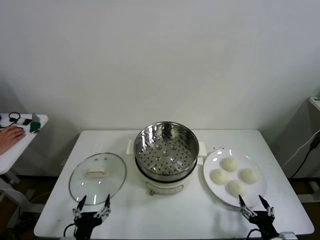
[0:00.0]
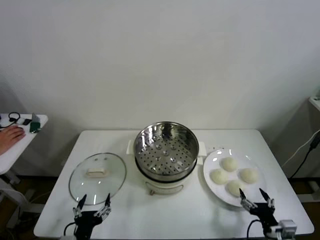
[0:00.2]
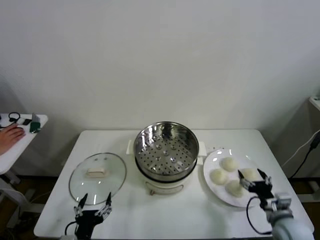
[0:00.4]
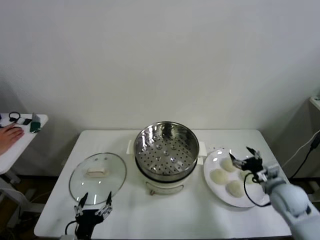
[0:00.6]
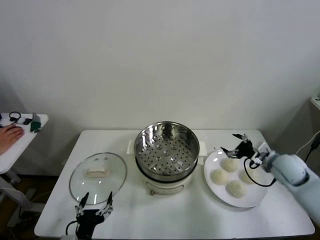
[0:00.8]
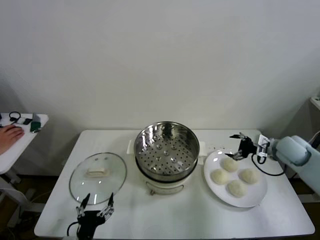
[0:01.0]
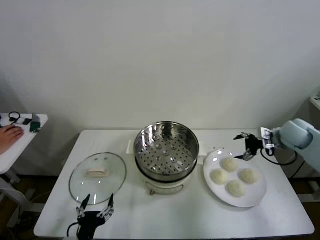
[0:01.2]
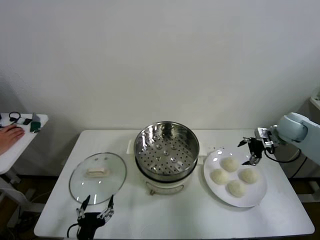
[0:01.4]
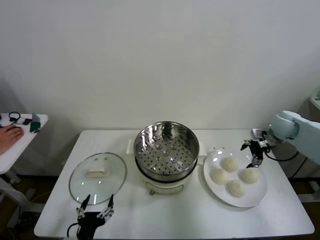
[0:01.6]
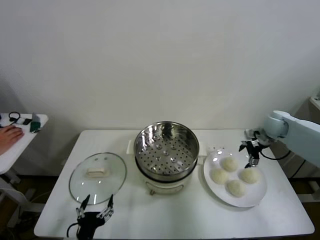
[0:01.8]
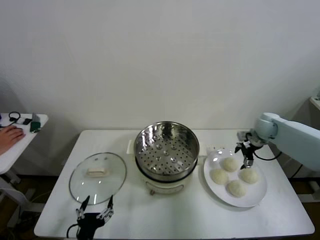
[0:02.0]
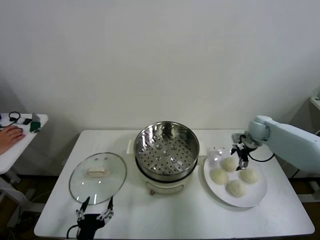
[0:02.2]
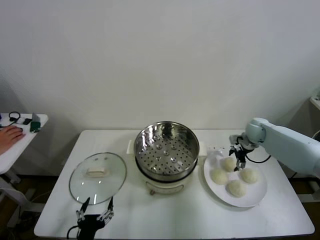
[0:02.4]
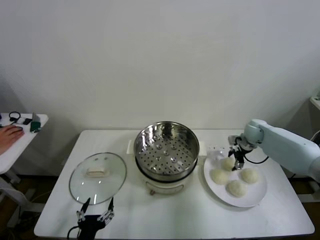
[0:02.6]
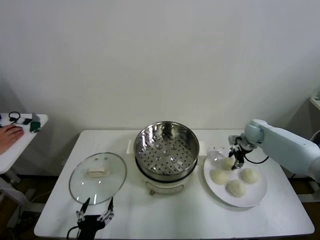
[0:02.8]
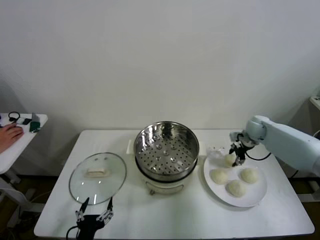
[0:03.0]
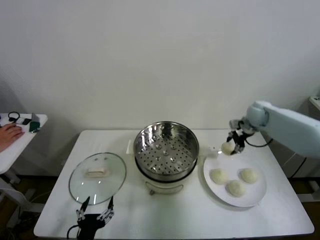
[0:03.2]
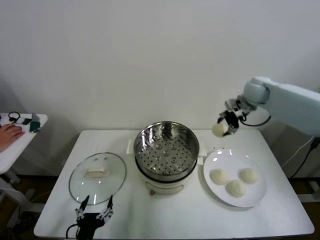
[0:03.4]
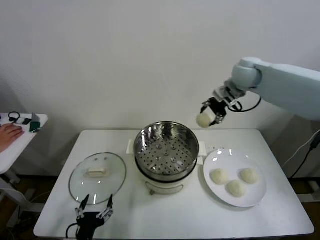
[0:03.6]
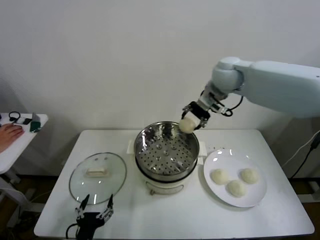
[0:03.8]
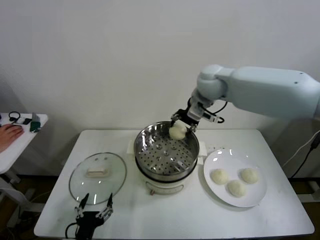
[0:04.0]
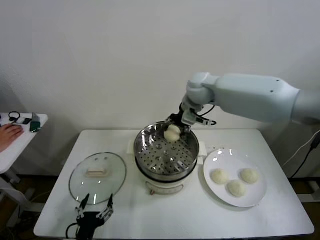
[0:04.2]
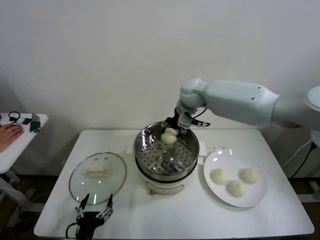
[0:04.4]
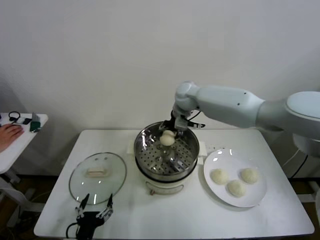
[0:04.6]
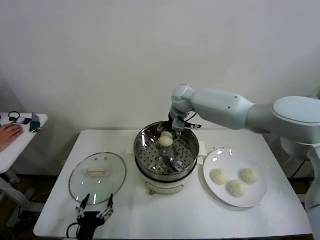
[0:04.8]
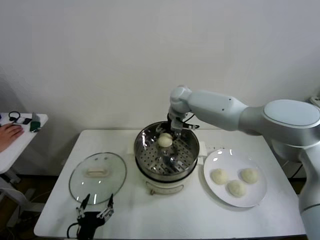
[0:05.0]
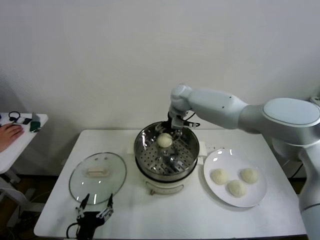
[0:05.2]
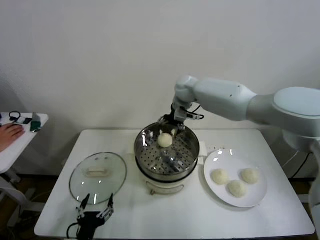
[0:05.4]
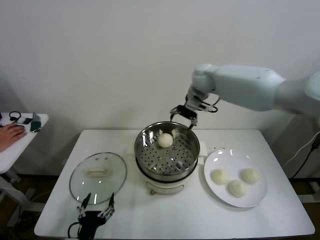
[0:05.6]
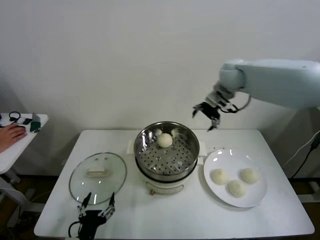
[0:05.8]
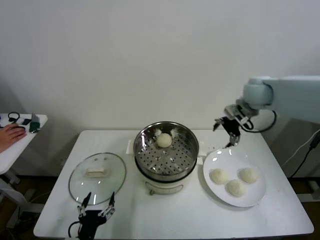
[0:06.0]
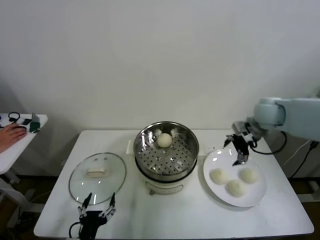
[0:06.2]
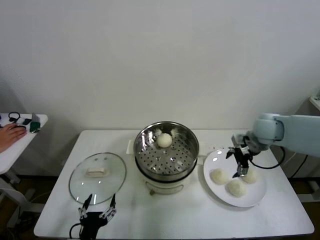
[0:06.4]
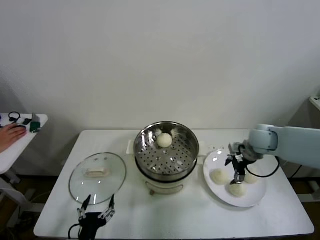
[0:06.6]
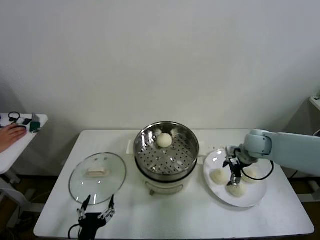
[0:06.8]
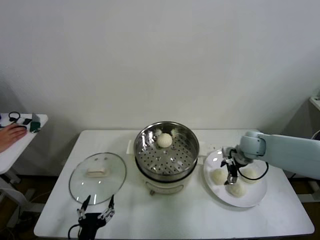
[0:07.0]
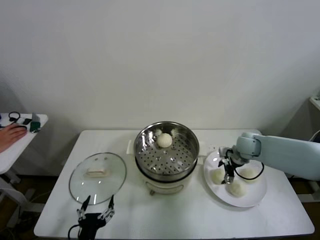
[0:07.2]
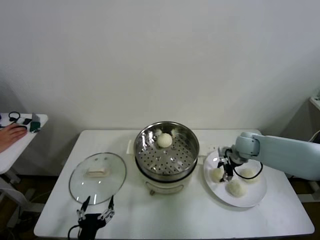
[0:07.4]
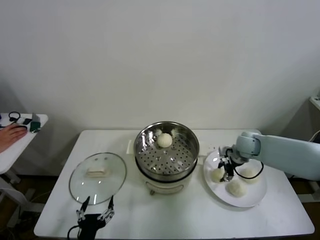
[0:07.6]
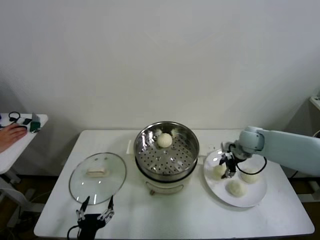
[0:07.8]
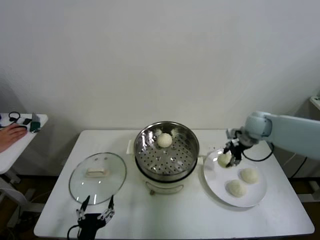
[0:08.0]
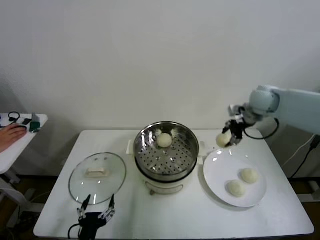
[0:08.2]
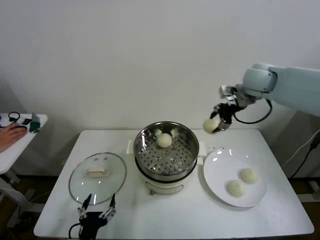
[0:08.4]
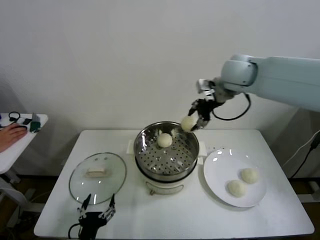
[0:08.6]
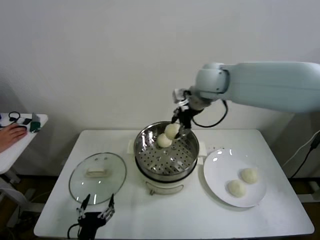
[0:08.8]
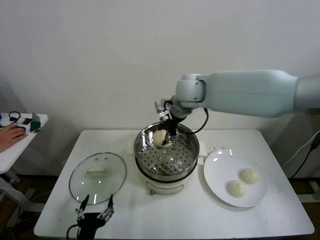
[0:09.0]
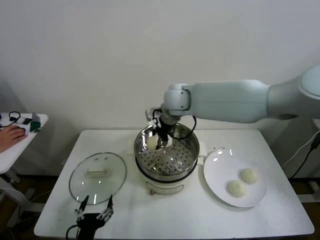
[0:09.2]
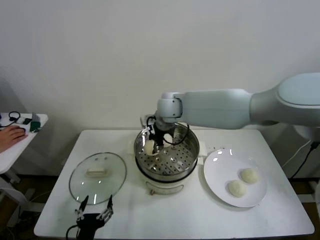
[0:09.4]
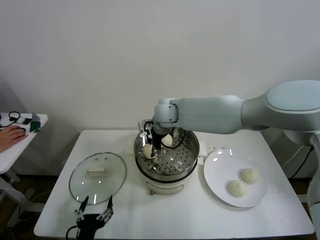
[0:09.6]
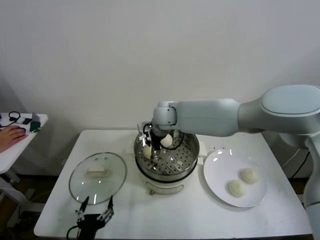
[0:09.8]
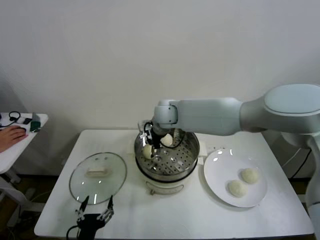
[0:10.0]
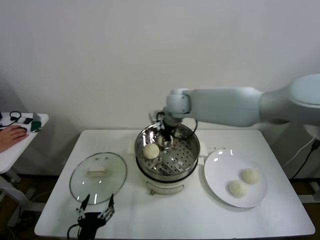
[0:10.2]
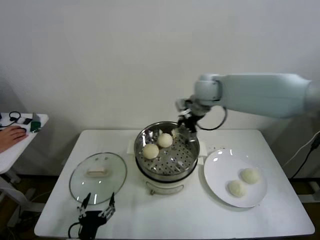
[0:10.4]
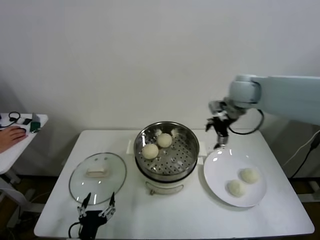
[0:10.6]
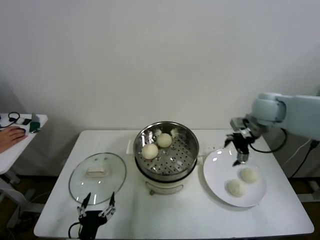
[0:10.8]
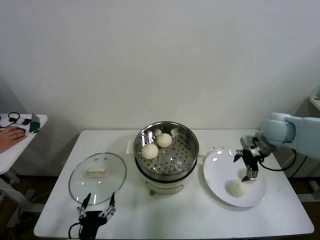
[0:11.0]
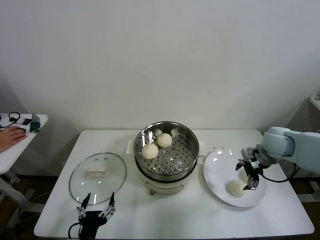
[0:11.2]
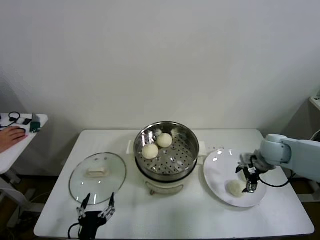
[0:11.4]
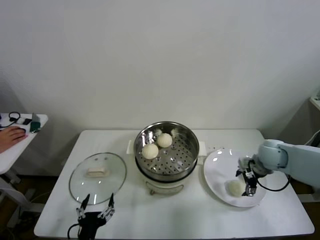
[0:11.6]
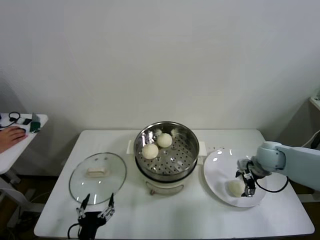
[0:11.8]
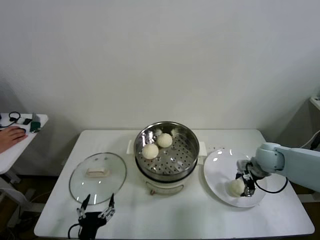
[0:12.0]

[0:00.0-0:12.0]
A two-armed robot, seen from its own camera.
Step, 0.0 to 2.6 s: Grasp the baozi in the plate with right gripper.
Step, 3.0 to 5.0 s: Place the baozi on the steamer with right gripper.
Step, 5.2 to 7.4 s: Grasp the baozi in the plate with right gripper.
Step, 7.6 to 9.8 s: Place the baozi on the steamer with right gripper.
1.6 to 3.0 s: The right gripper travels downward and back again, some 10 cm each way, and closes its fingers.
3.0 to 4.4 s: The right gripper goes some 30 cm to the left and upward.
4.4 to 6.0 s: The right gripper shifts approximately 20 cm to the right, and opens its fingers.
6.0 to 7.6 s: The right gripper shifts some 20 cm downward, and closes up.
7.6 to 9.0 s: The right gripper moves to the left and upward, some 35 cm.
9.0 to 10.4 s: The right gripper heads to the right, covering some 15 cm, and opens its fingers.
10.4 to 12.0 s: The right gripper goes roughly 30 cm downward, to the right and backward, and closes.

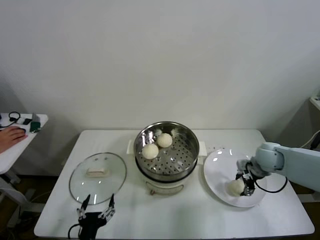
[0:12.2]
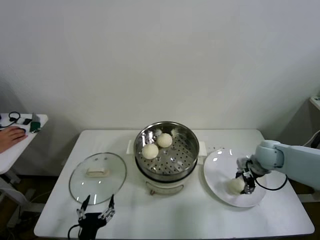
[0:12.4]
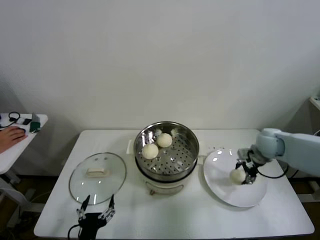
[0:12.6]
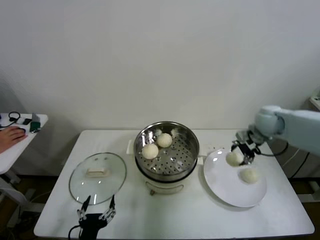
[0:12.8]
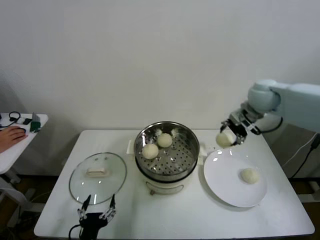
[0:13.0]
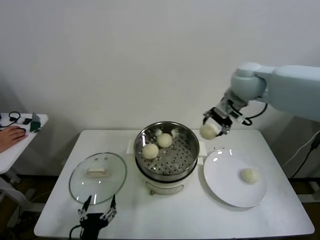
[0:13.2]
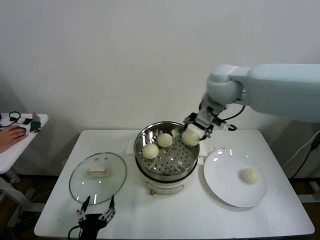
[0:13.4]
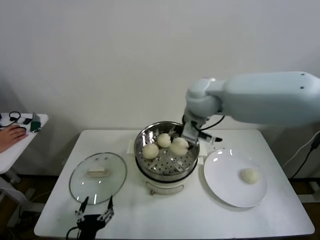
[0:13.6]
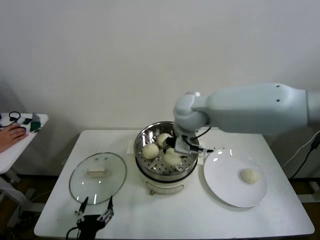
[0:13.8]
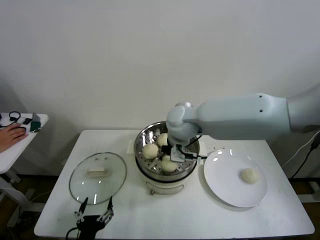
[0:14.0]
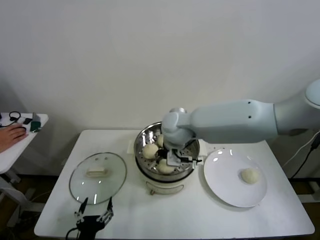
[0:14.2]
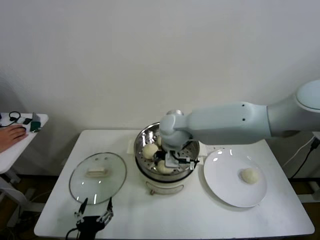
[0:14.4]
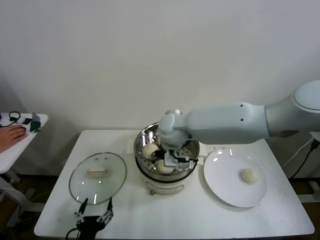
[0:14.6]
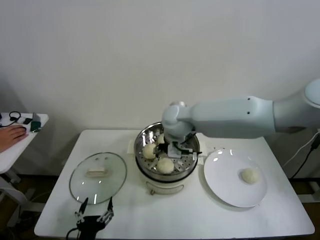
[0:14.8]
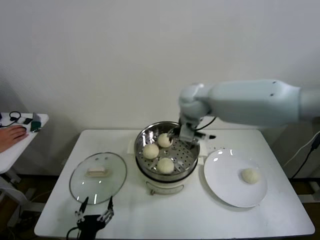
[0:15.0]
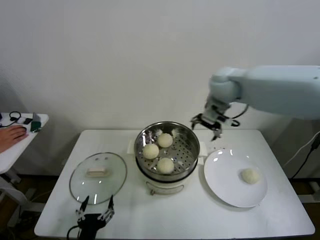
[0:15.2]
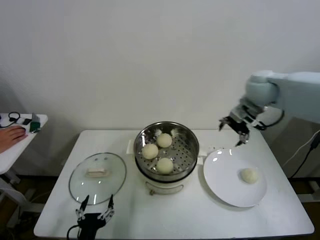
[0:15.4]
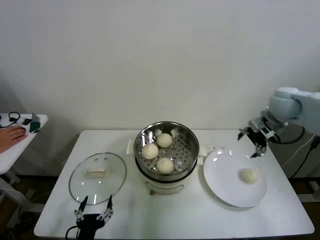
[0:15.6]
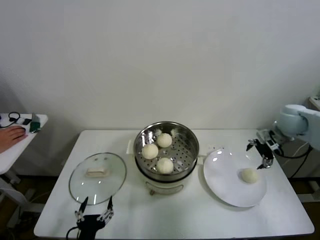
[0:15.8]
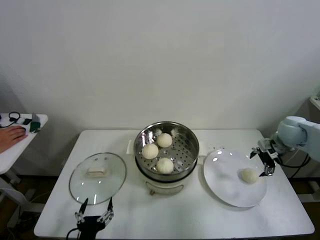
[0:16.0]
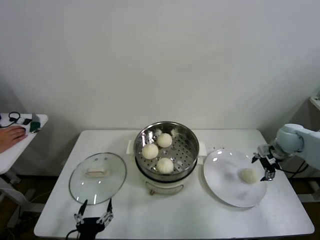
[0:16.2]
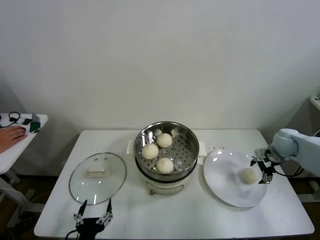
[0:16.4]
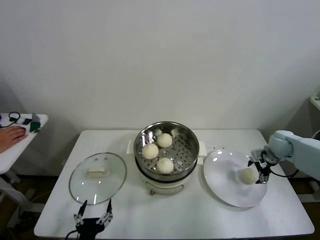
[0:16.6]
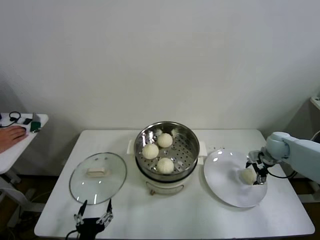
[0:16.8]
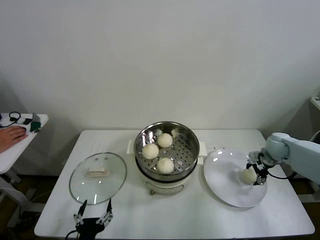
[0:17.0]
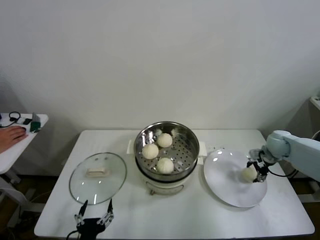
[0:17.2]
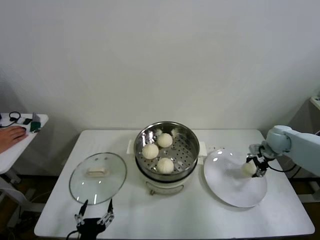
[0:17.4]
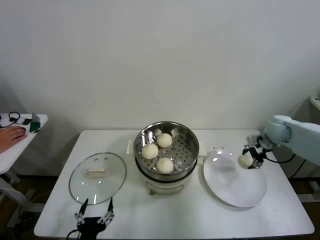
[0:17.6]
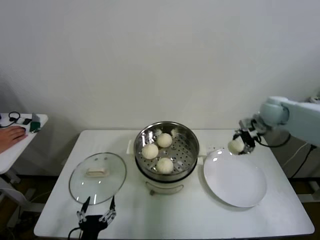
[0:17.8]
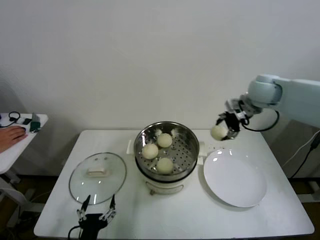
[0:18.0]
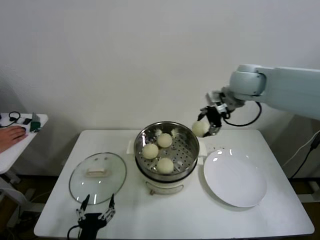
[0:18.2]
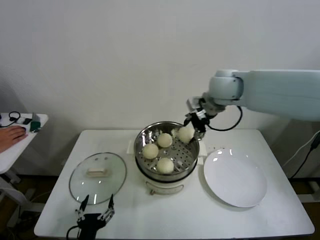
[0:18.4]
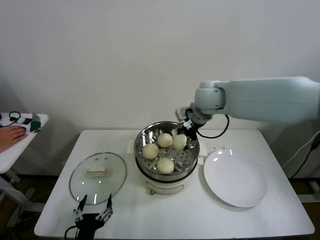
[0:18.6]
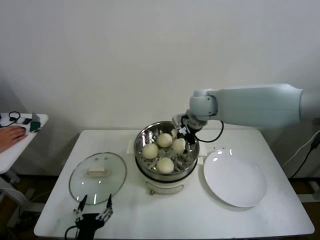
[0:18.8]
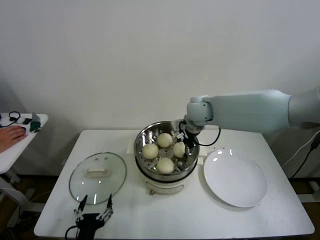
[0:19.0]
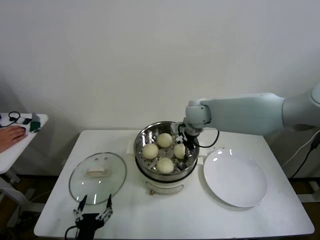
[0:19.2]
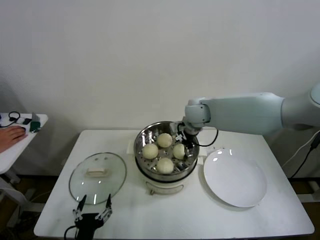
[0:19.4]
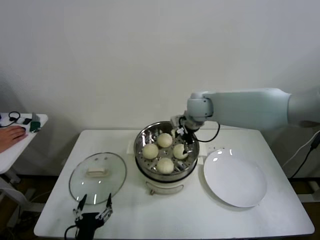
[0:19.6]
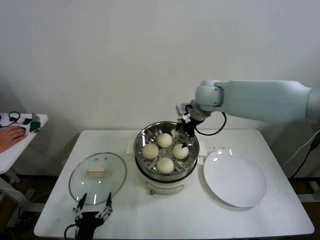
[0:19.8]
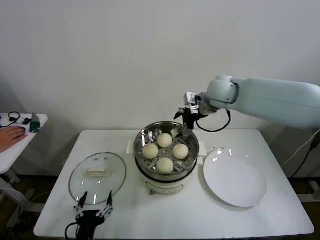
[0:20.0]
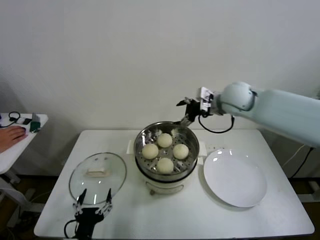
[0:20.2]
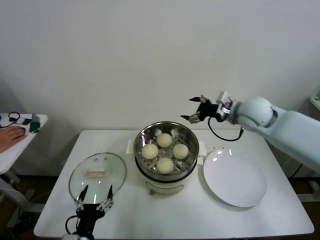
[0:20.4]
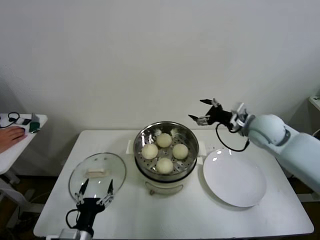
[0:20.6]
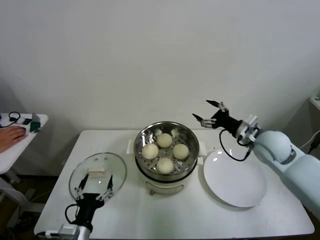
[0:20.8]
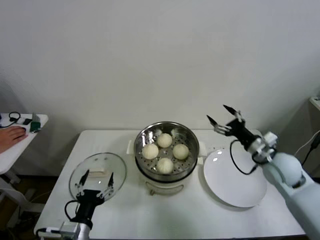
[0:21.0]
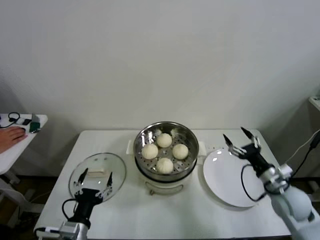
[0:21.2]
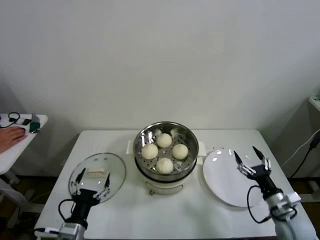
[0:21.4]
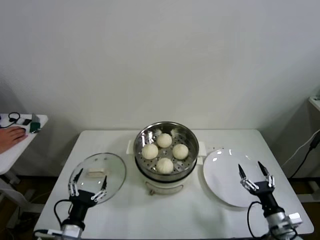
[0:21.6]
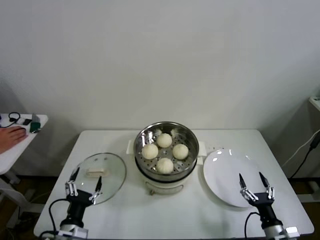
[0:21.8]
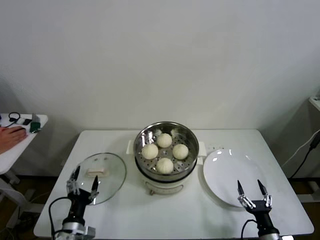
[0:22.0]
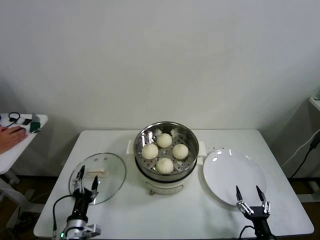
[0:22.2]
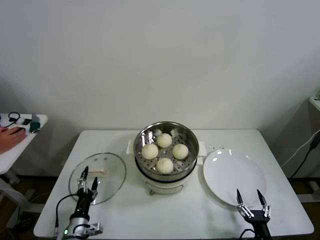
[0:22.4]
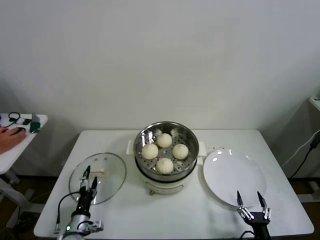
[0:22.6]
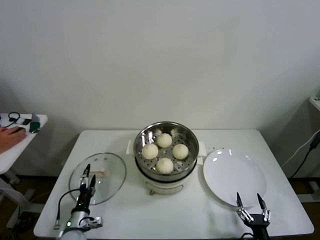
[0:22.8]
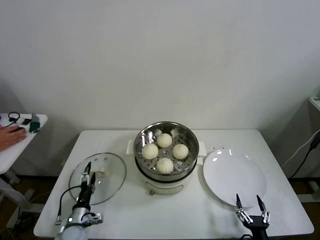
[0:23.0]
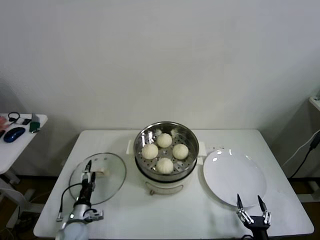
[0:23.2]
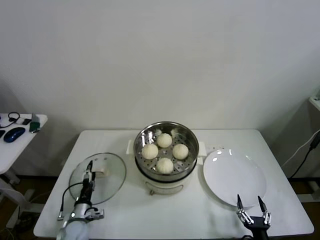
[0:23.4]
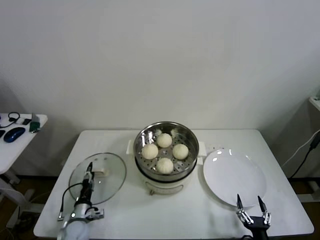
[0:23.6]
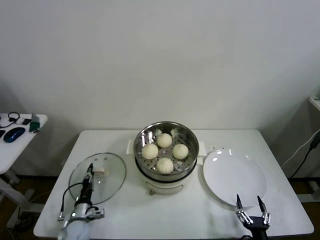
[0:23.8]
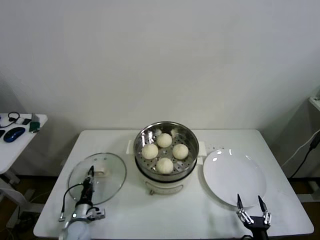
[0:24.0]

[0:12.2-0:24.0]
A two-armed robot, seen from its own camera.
Step, 12.4 to 14.4 s: Place the baozi on the steamer with right gripper.
Step, 14.8 to 17.0 s: Grasp the baozi in the plate with right gripper.
Step, 17.2 to 19.4 s: Place the baozi on the steamer with right gripper.
Step, 19.6 to 24.0 s: Grasp the pot lid with left gripper.
12.2 to 13.6 s: The right gripper goes approximately 35 cm to the left and upward.
13.6 to 15.2 s: The right gripper heads to the right and forward, covering about 15 cm, and opens up.
15.2 to 16.6 s: The right gripper shifts approximately 35 cm downward and to the right.
16.6 to 18.2 s: The right gripper goes some 35 cm upward and to the left, and closes up.
18.2 to 19.6 s: The right gripper moves downward and to the left, some 15 cm, and opens.
19.6 to 21.0 s: The right gripper is displaced to the right, backward and downward by approximately 30 cm; the left gripper shifts by roughly 5 cm.
21.0 to 22.6 s: The right gripper is displaced backward and downward by some 35 cm, while the left gripper goes roughly 15 cm downward, forward and to the left.
22.6 to 24.0 s: The left gripper goes some 5 cm forward, and closes.
